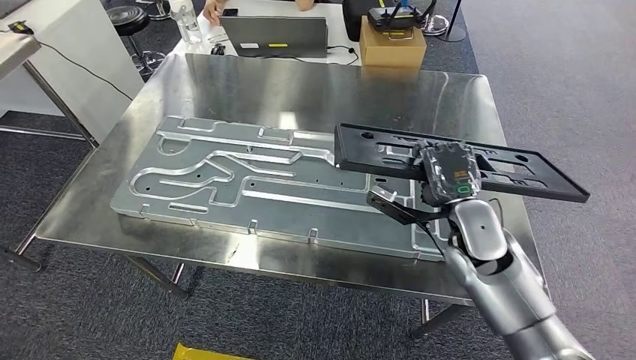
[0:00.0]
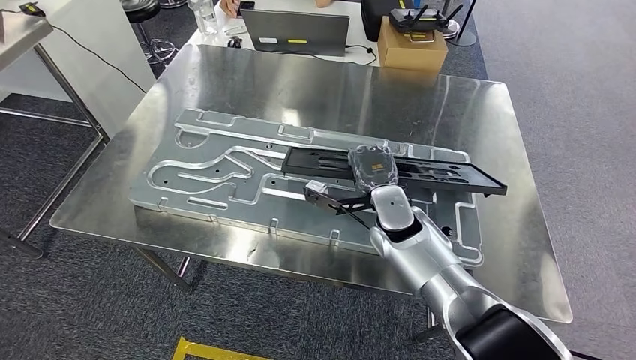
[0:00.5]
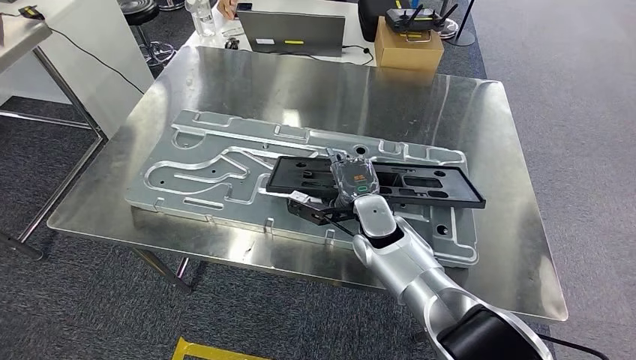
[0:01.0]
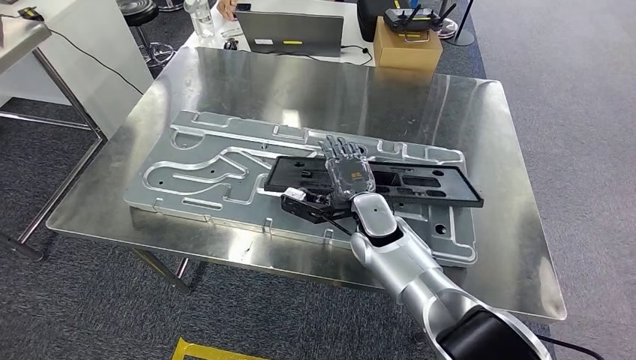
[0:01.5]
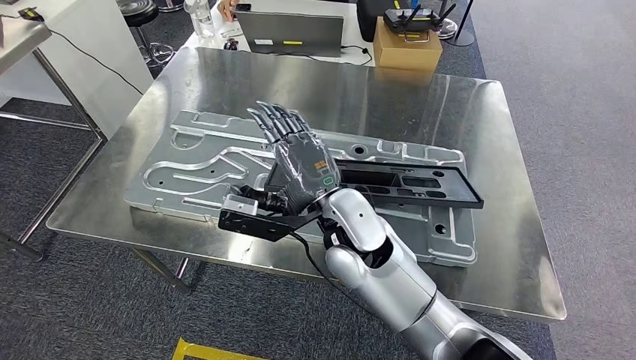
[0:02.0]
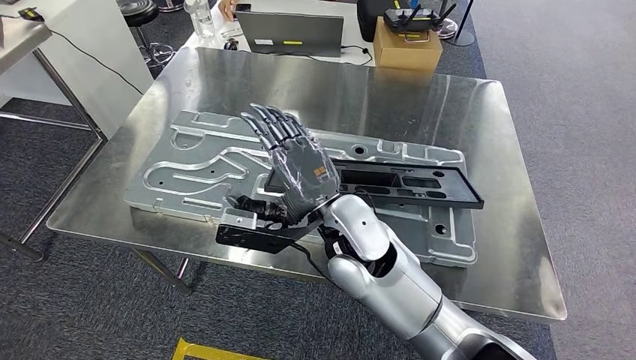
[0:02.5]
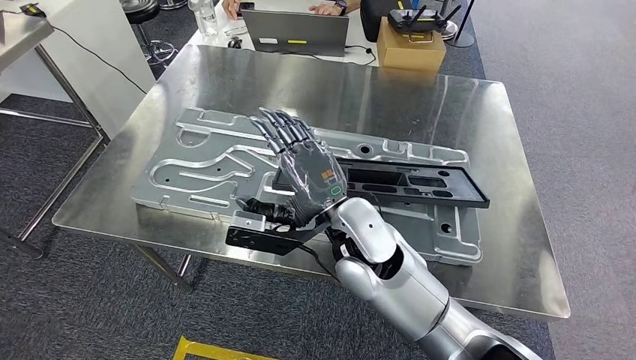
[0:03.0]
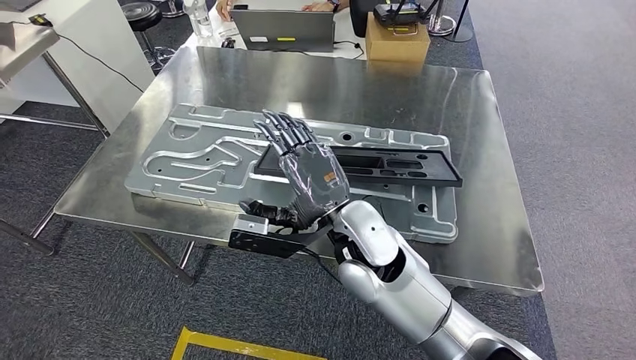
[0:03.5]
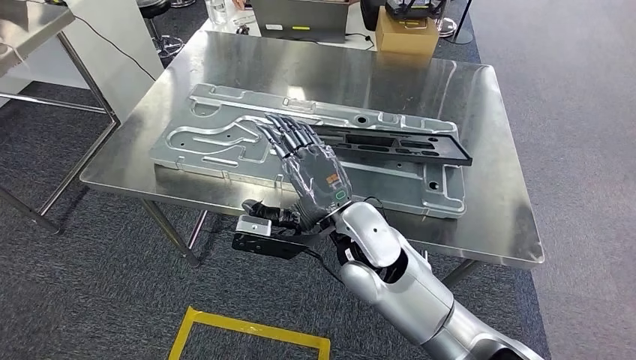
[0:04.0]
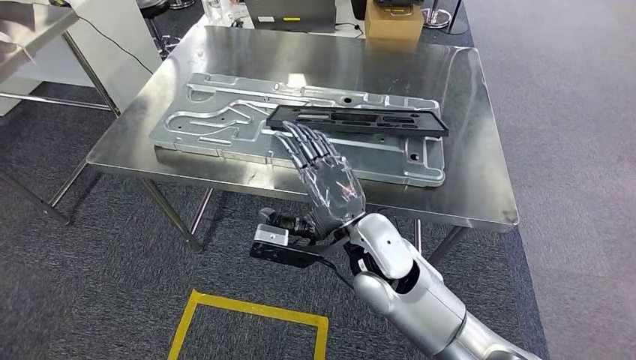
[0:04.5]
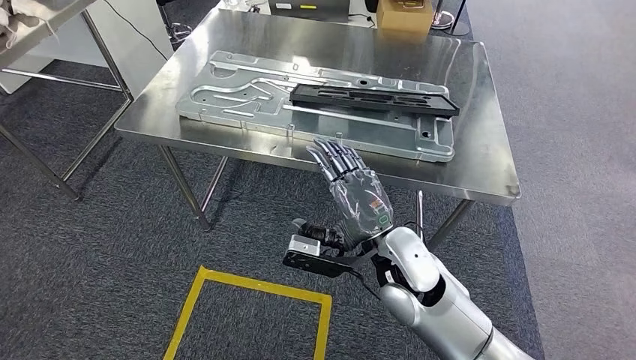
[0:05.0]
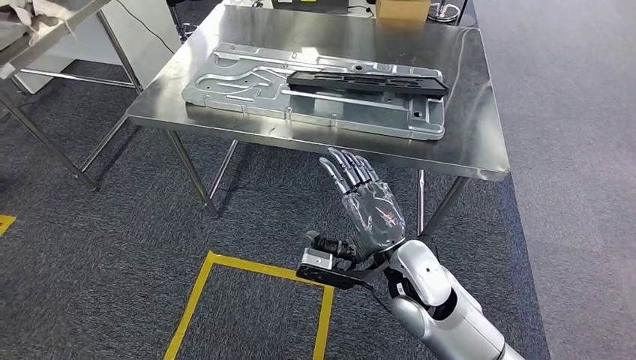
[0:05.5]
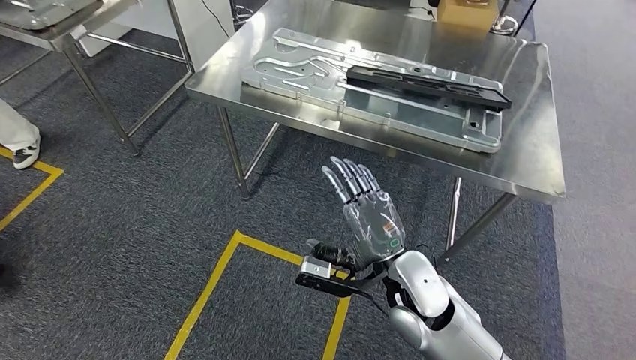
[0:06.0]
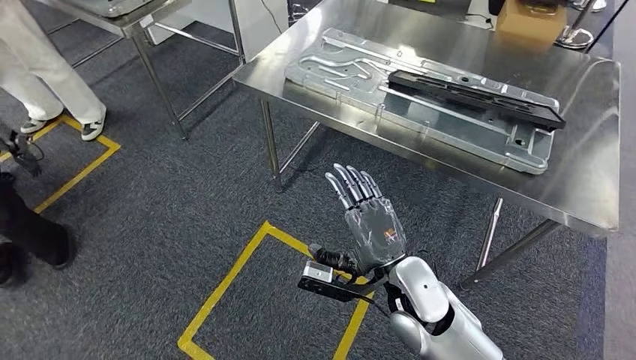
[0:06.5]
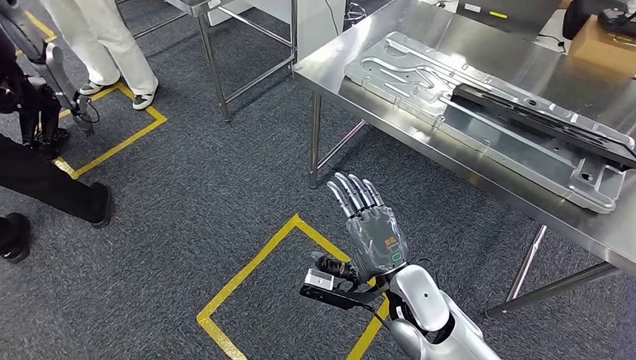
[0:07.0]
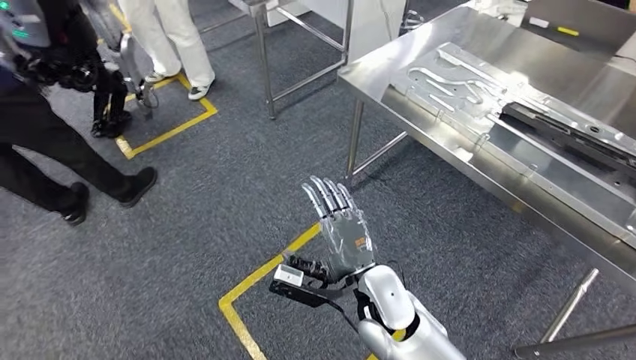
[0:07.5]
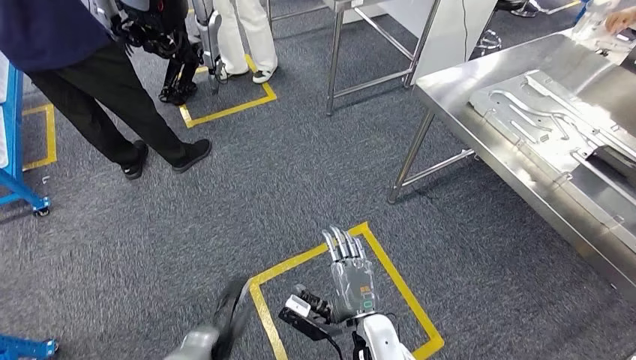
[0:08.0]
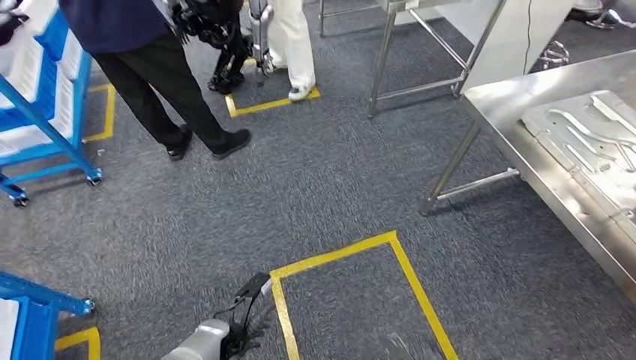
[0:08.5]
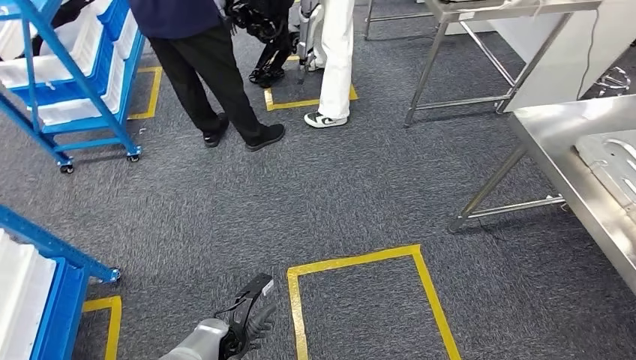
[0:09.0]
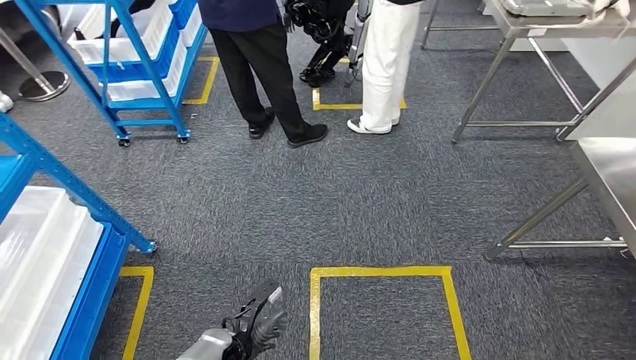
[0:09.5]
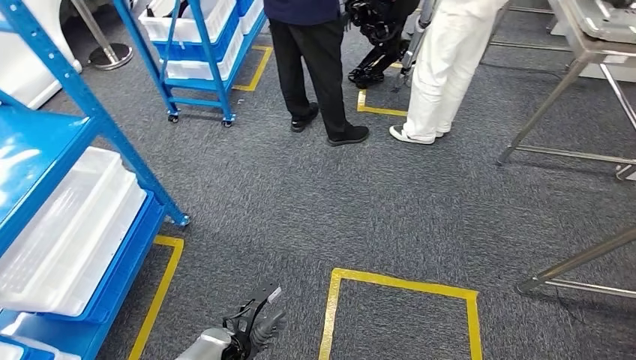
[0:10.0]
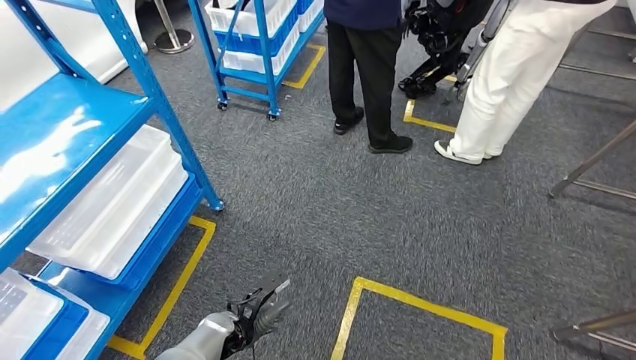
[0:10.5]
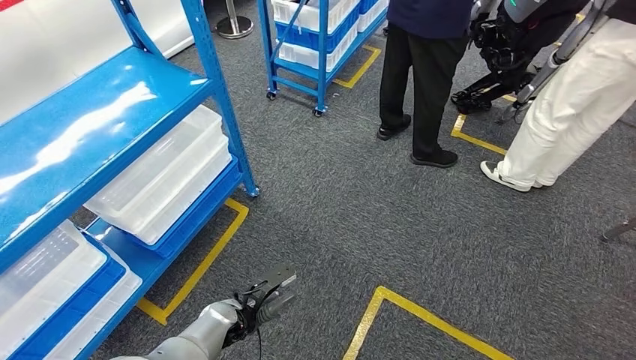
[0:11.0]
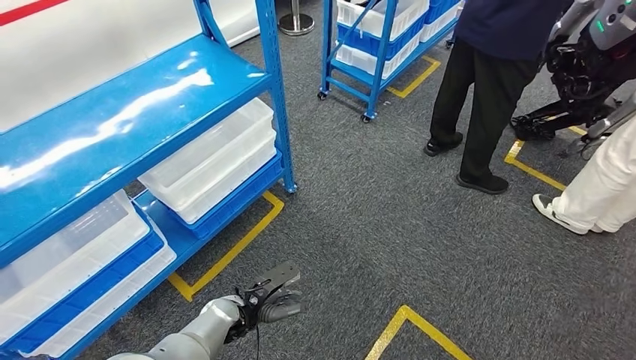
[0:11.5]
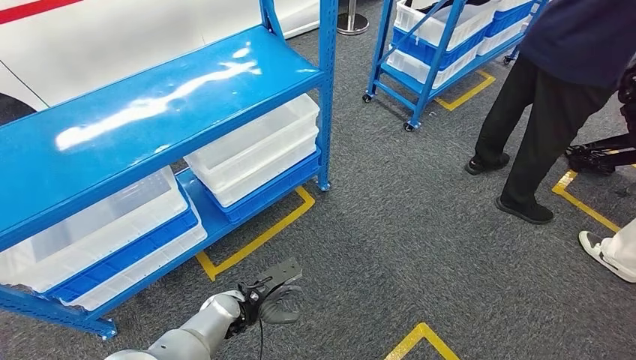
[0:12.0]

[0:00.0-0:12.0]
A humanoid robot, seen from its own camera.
Step, 0:00.0 to 0:02.5: Insert the large material into the corresponding slot on the workbench.

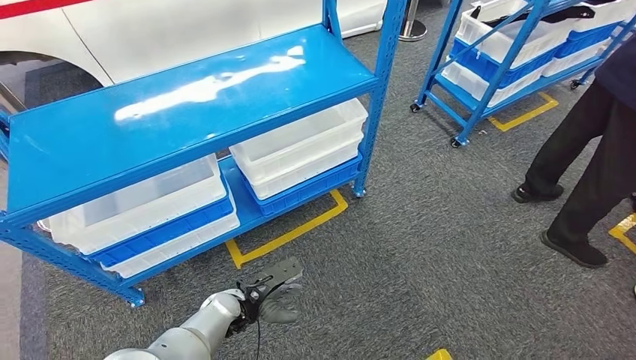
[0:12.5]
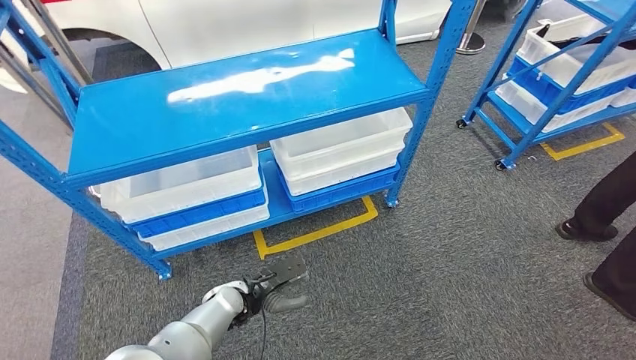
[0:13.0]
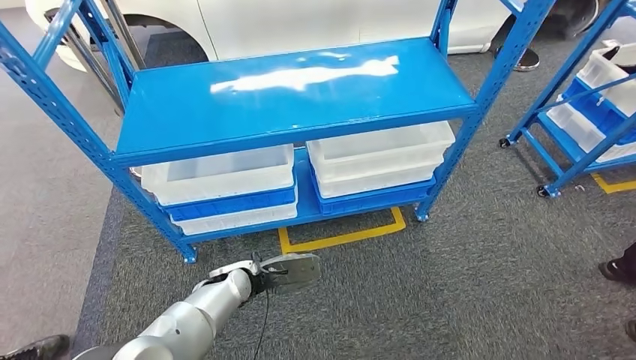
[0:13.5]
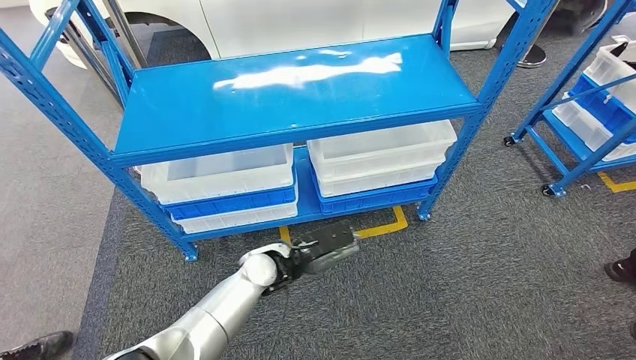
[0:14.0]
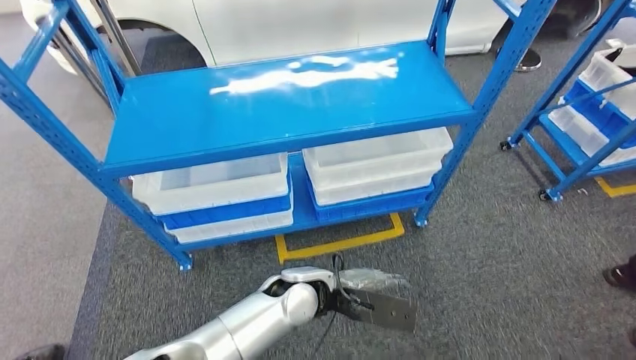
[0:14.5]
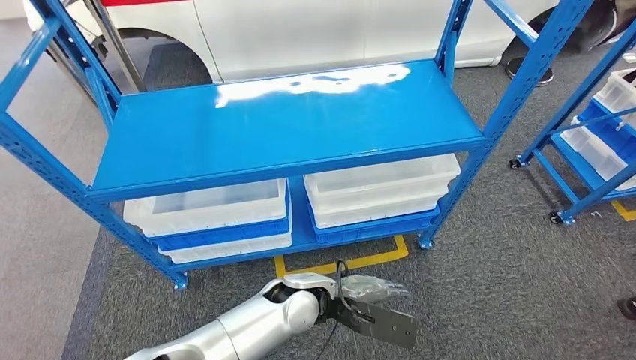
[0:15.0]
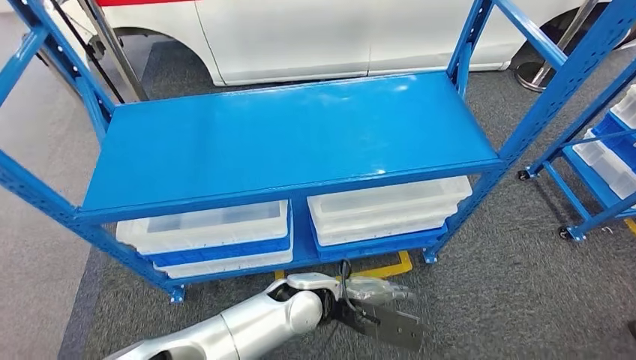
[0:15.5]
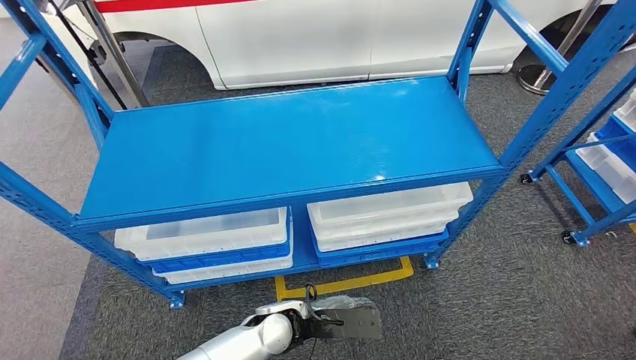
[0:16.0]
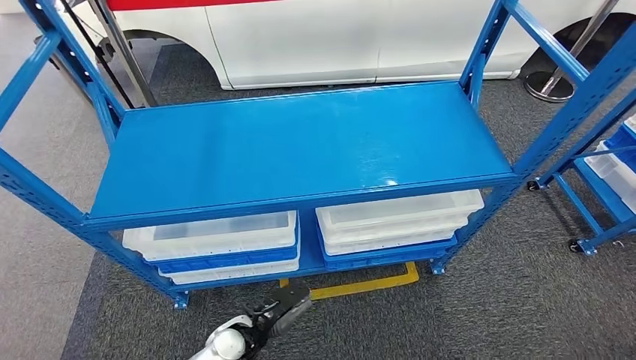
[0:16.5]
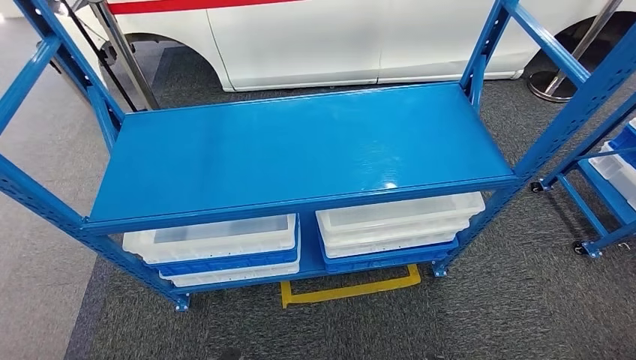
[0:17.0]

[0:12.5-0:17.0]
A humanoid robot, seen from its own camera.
Step, 0:12.5 to 0:17.0: Move to the initial position of the shelf.

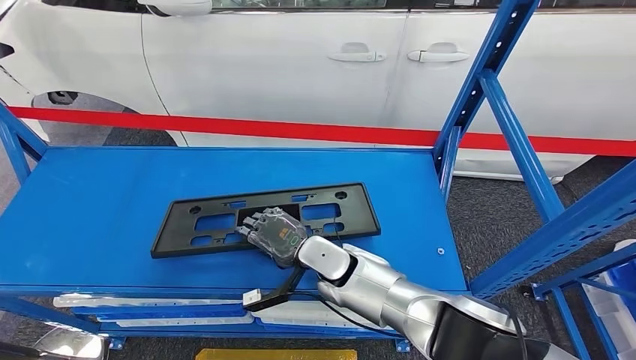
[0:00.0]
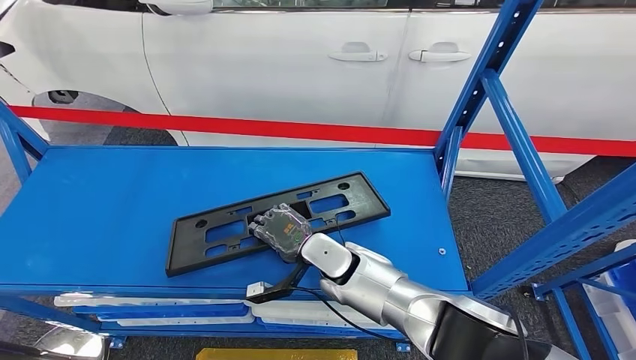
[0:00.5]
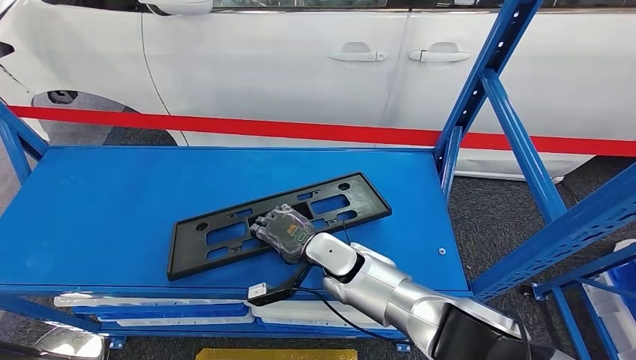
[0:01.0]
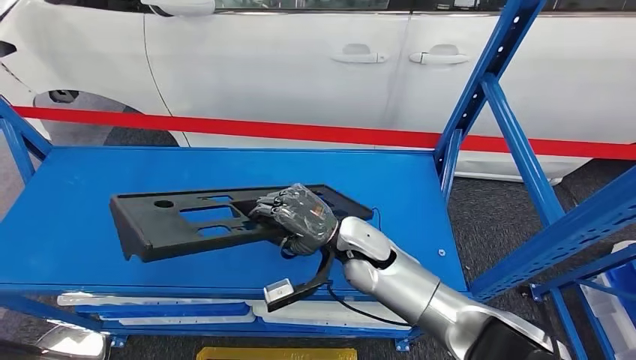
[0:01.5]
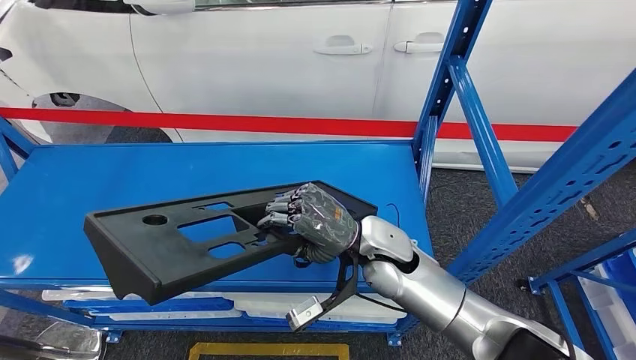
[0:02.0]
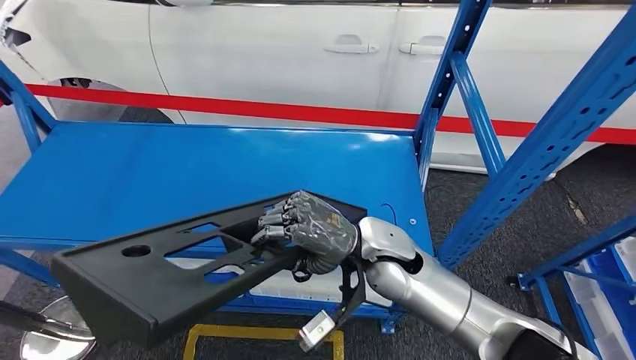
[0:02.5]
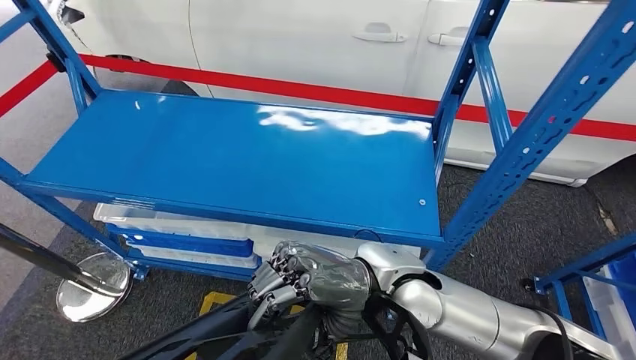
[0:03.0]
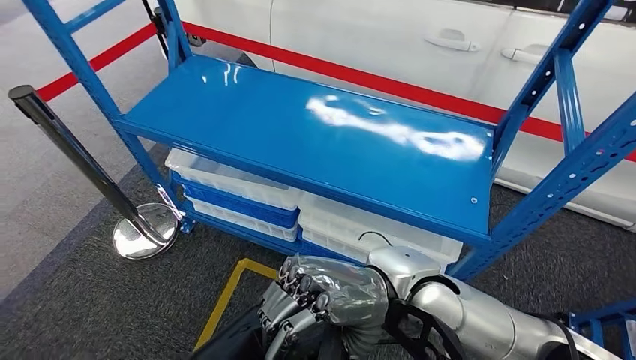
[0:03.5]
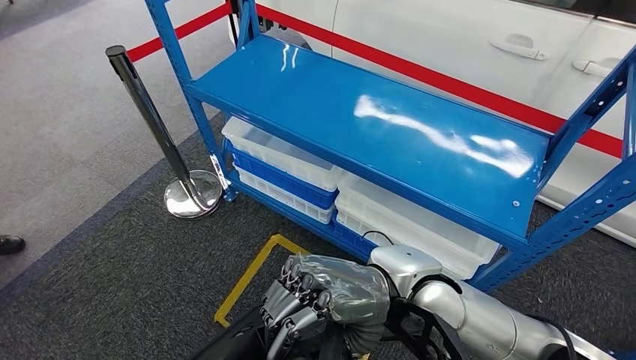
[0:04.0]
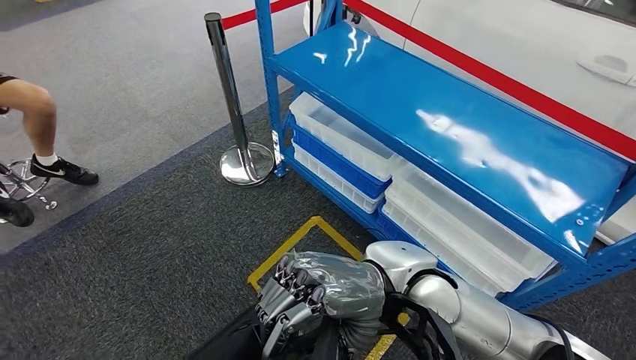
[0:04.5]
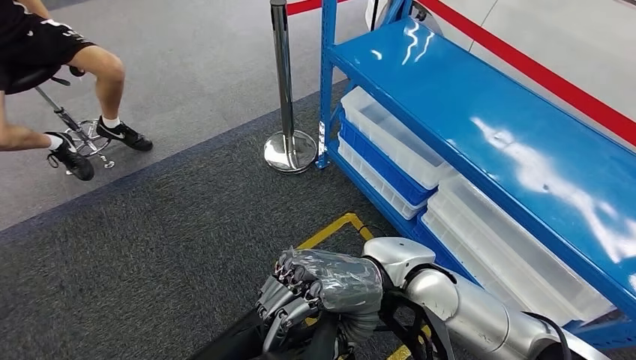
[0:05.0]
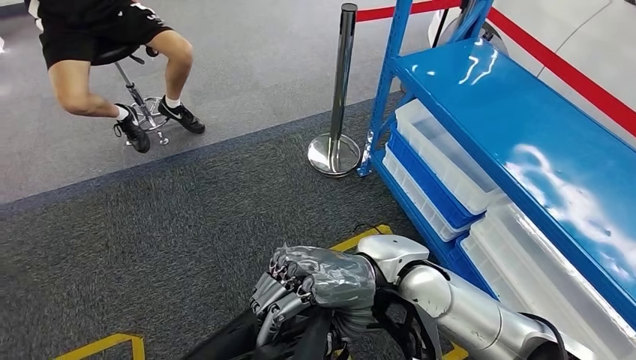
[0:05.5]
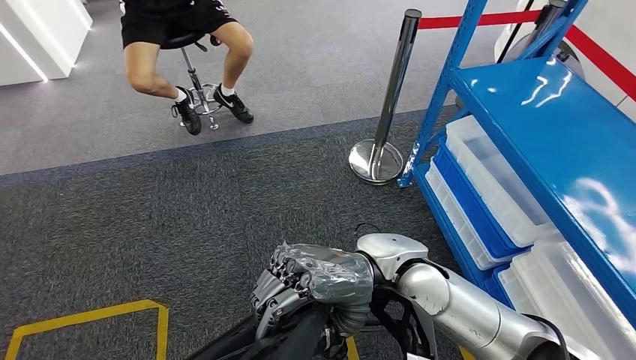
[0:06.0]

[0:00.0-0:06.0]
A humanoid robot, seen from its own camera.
Step, 0:00.0 to 0:03.0: Pick up the large material from the shelf.
